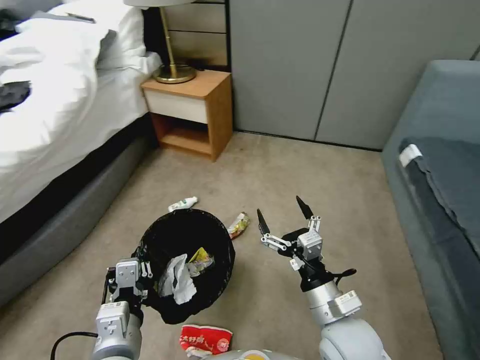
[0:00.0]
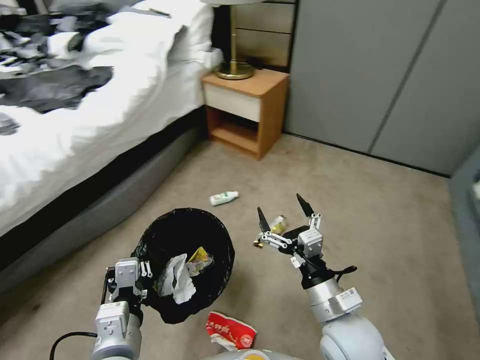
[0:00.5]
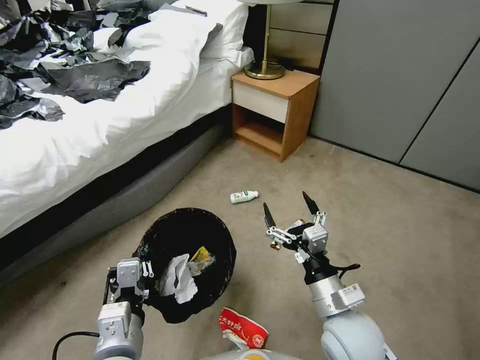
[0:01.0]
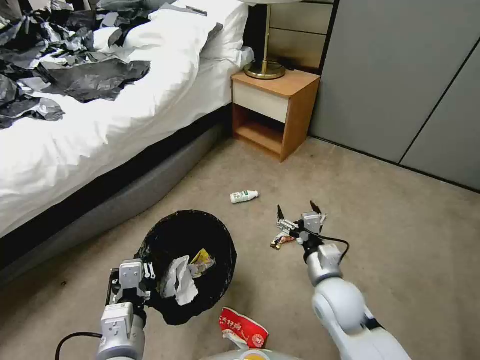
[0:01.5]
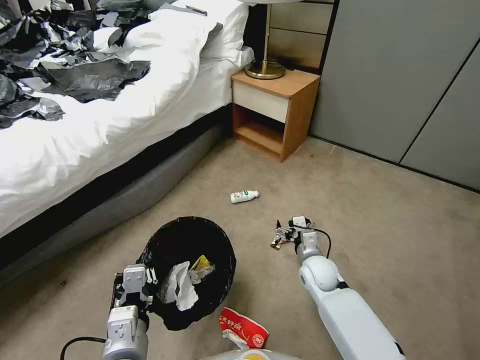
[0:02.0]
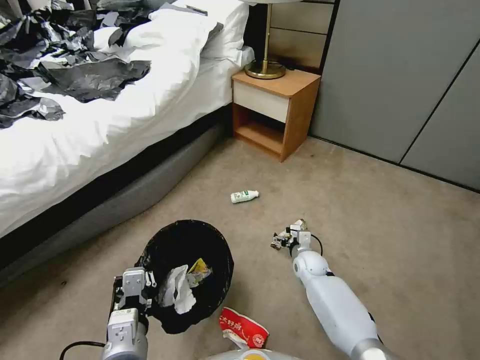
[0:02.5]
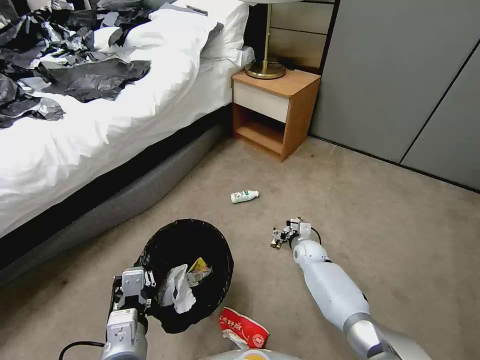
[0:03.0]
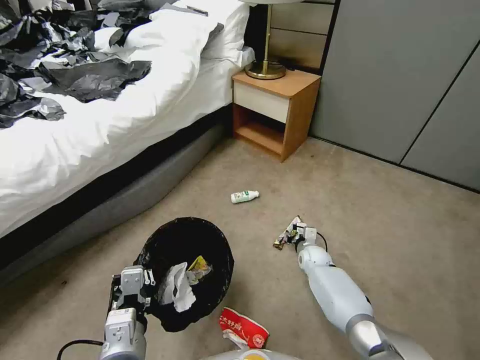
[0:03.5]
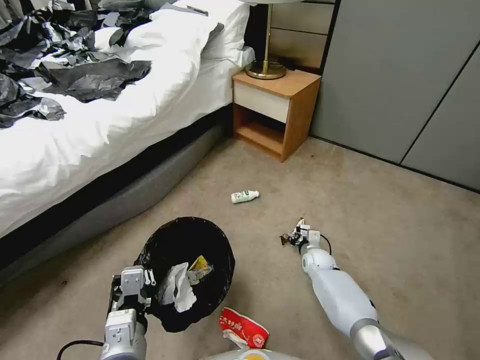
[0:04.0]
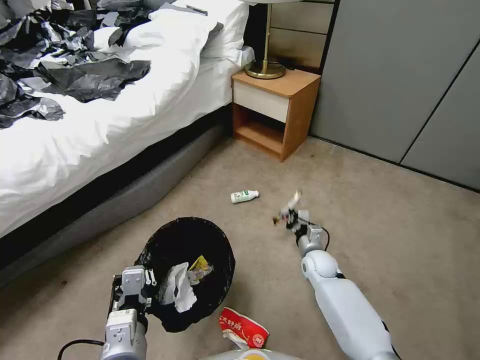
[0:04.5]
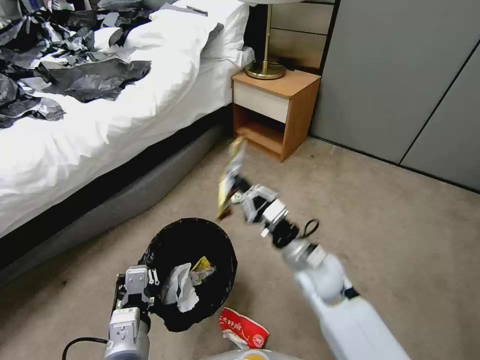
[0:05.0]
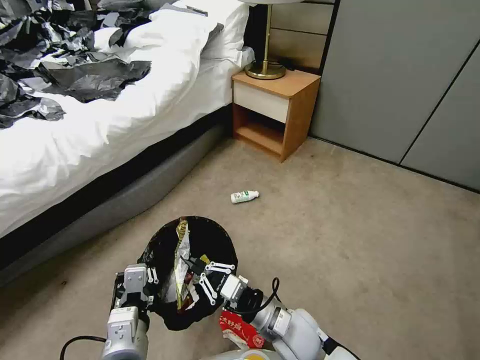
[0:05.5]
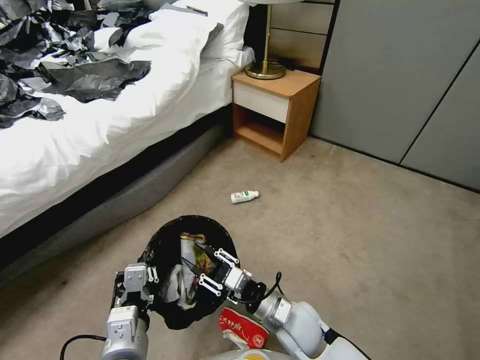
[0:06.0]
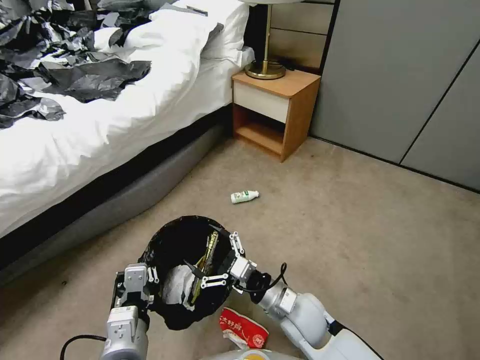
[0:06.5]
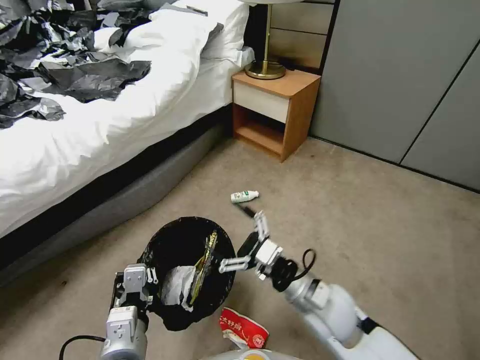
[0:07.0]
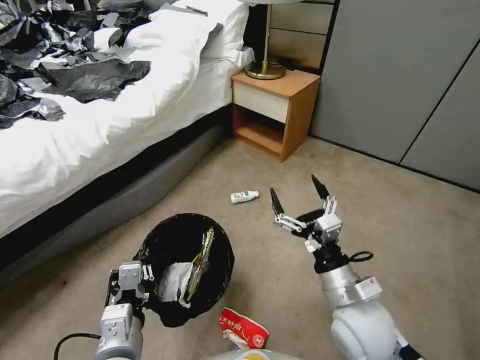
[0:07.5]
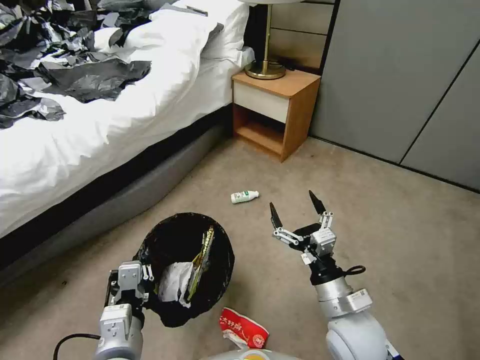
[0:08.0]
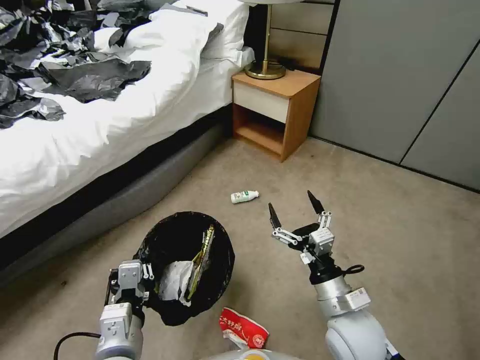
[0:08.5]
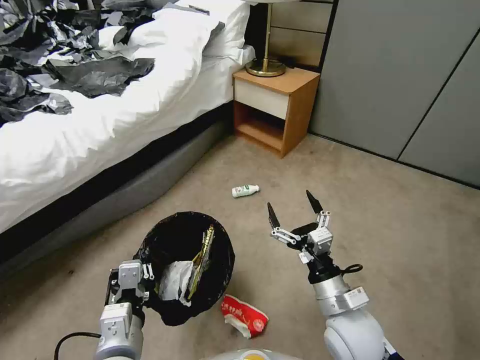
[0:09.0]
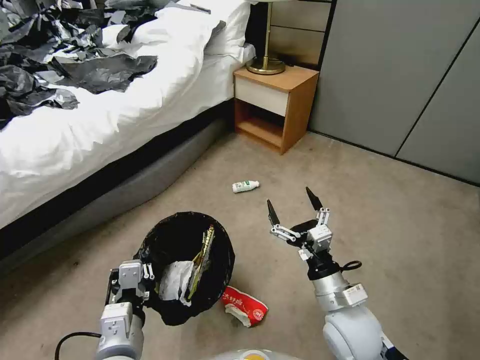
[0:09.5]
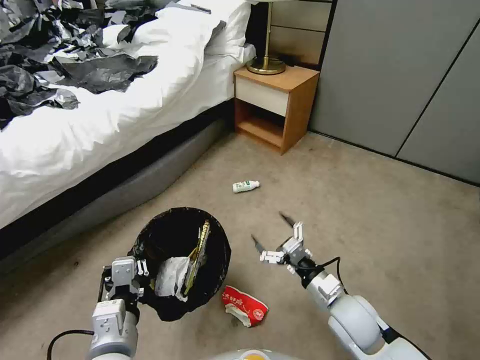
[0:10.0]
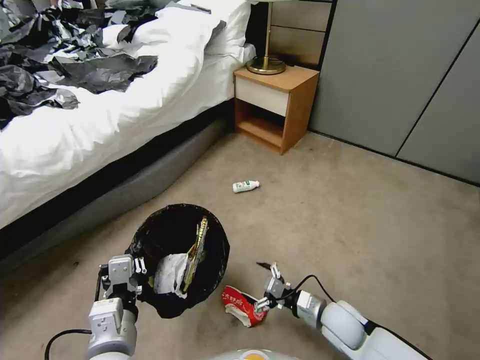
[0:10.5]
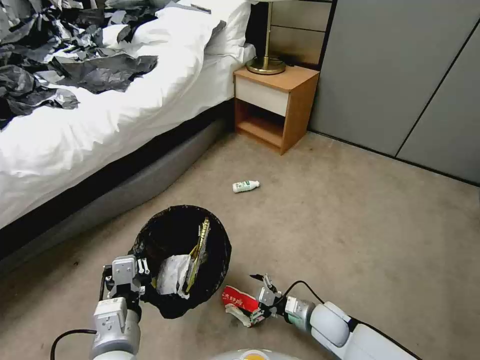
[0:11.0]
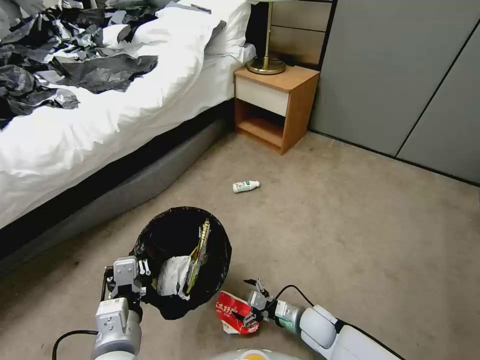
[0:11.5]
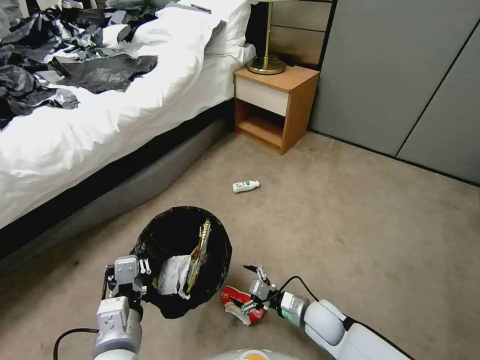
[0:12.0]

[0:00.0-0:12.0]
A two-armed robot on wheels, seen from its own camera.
Task of the whole recording: Pick up the trash bin, then pick up the garbage from the floor and place it into the trash bin.
0:00.0 to 0:02.0: The right gripper moves forward and downward, some 20 cm.
0:02.0 to 0:04.0: The right gripper travels downward and forward by some 15 cm, and closes its fingers.
0:04.0 to 0:06.0: The right gripper is displaced backward, upward and to the left by about 25 cm, and opens up.
0:06.0 to 0:08.0: The right gripper travels to the right and upward by some 10 cm, and opens.
0:08.0 to 0:10.0: The right gripper moves approximately 5 cm.
0:10.0 to 0:12.0: The right gripper travels downward by some 15 cm.

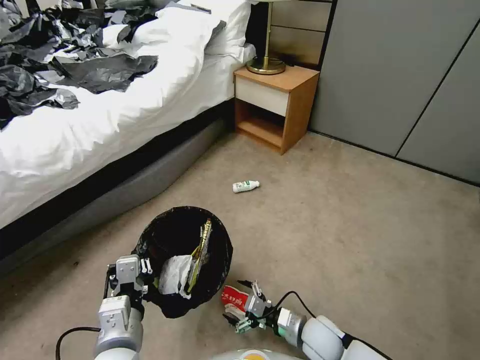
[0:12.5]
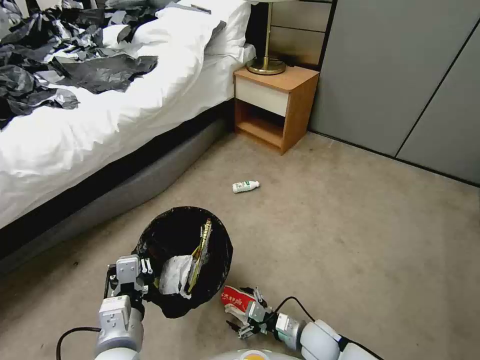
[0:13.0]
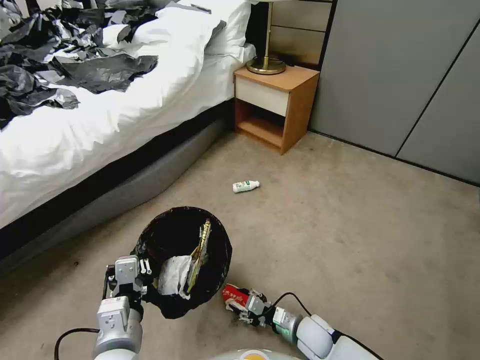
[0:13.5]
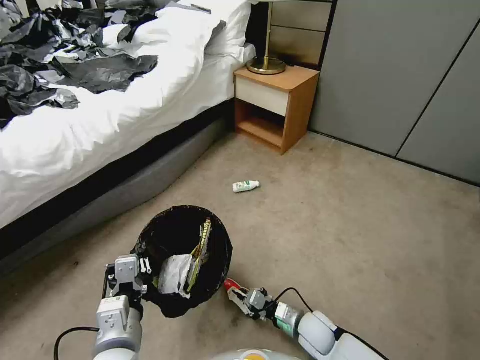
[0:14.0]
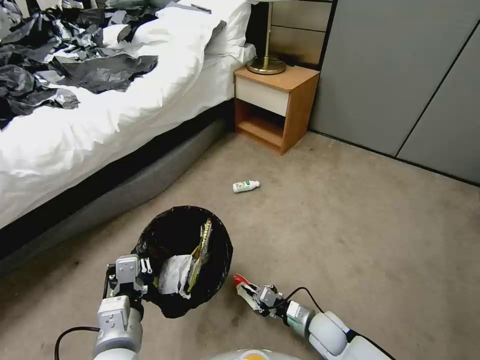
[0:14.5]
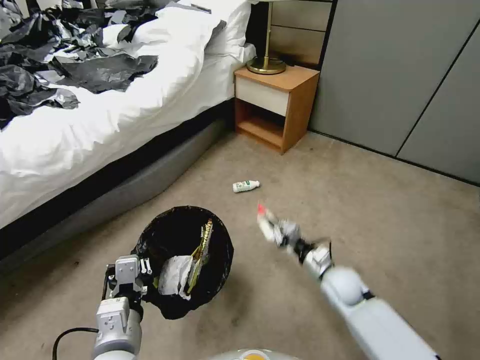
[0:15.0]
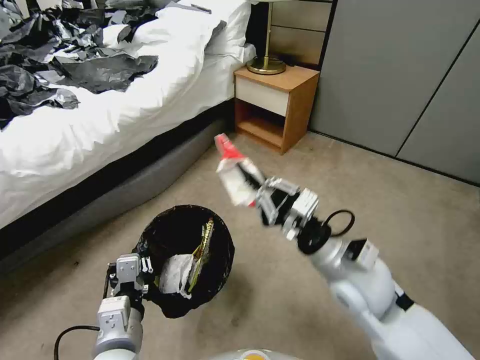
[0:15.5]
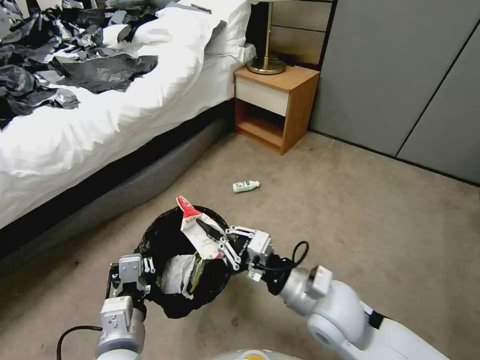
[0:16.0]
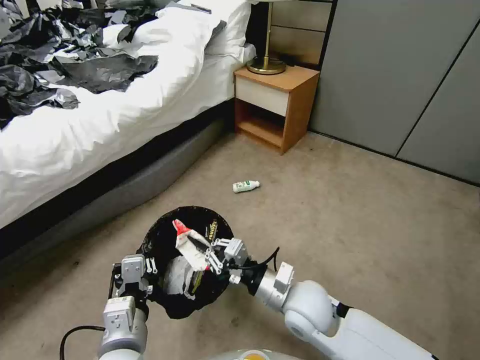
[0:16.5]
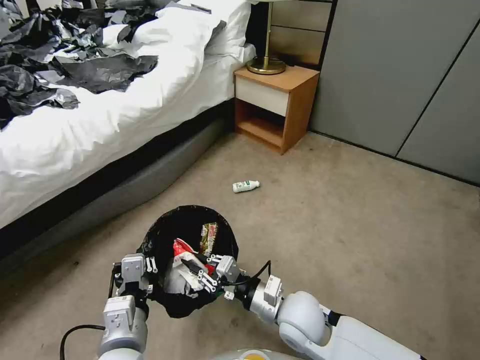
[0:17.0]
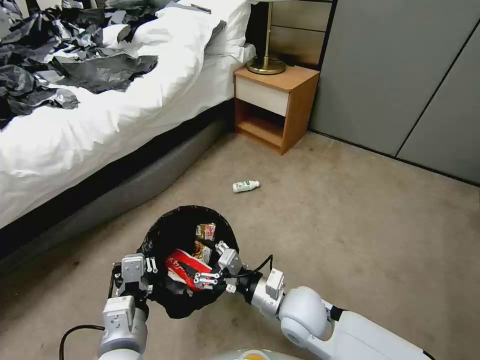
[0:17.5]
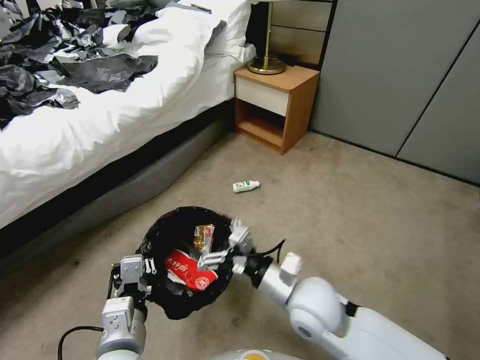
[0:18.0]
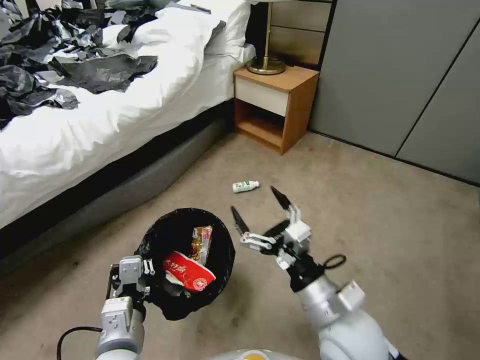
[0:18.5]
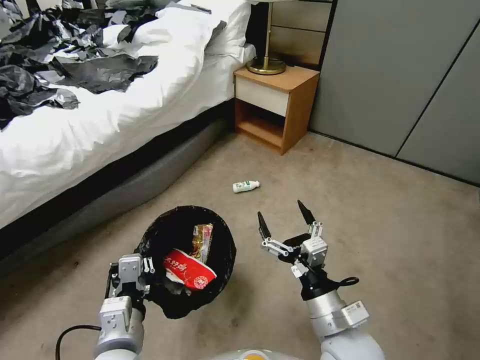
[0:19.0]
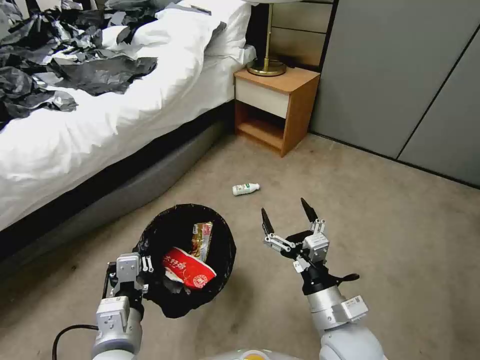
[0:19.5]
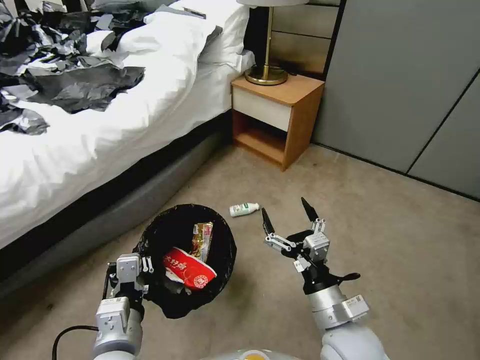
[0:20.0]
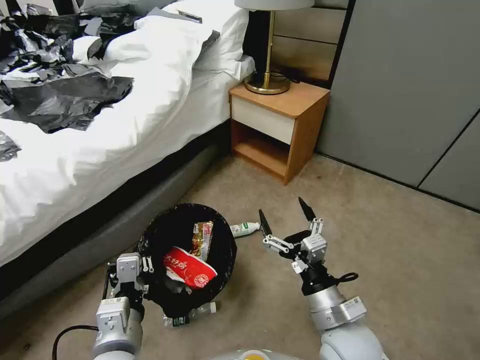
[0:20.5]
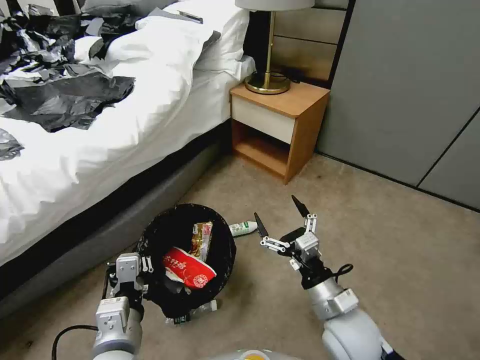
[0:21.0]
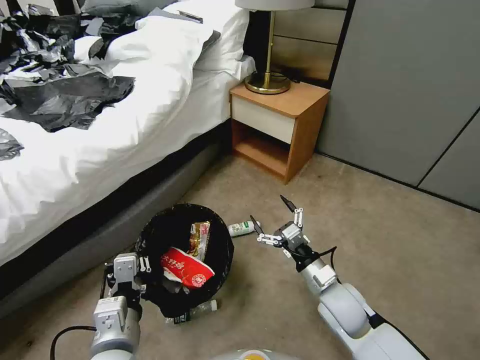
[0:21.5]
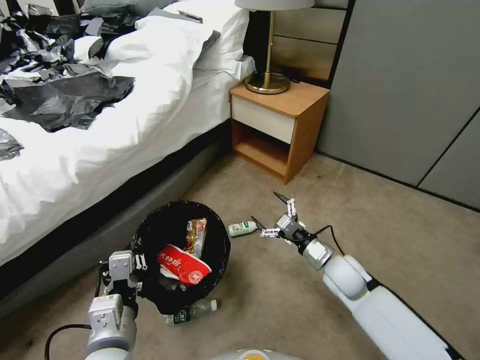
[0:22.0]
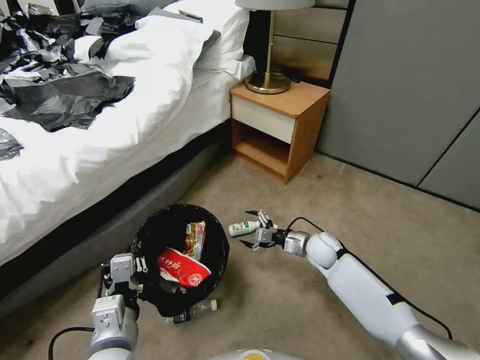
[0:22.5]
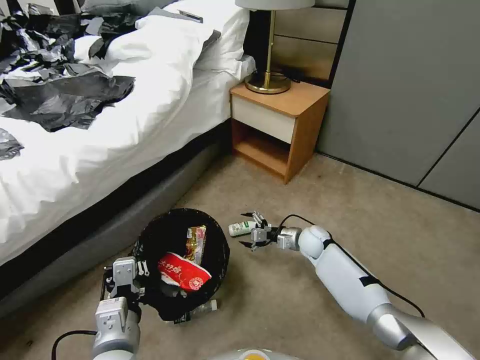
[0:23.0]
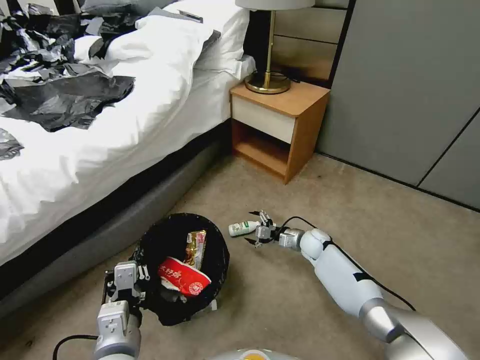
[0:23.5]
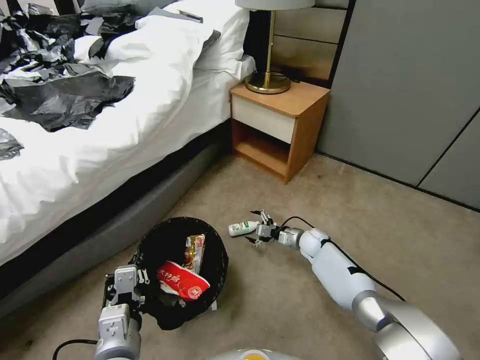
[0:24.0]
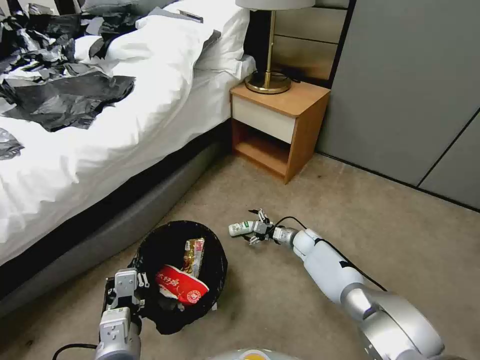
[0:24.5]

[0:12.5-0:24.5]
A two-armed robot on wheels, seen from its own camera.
Task of the whole recording: Pick up the trash bin, then pick up the garbage from the floor and place it into the trash bin.
0:12.5 to 0:14.5: The right gripper closes.
0:14.5 to 0:16.5: The right gripper is displaced upward and to the left by some 25 cm.
0:16.5 to 0:18.5: The right gripper goes some 10 cm upward and backward, and opens up.
0:18.5 to 0:20.5: The right gripper moves downward, roughly 5 cm.
0:20.5 to 0:22.5: The right gripper goes about 30 cm forward and downward.
0:22.5 to 0:24.5: The right gripper heads downward and forward, covering roughly 10 cm.

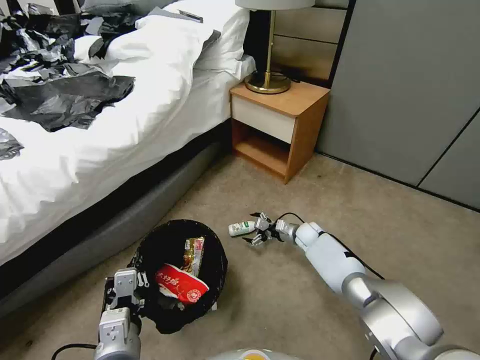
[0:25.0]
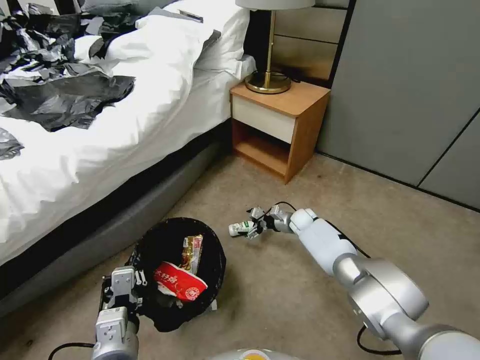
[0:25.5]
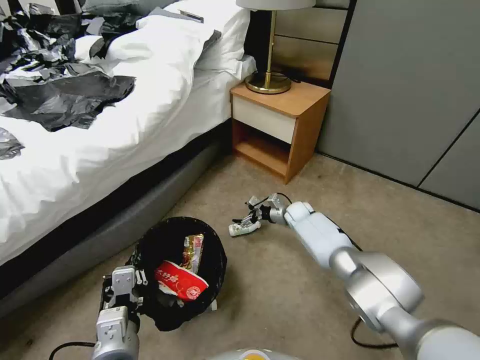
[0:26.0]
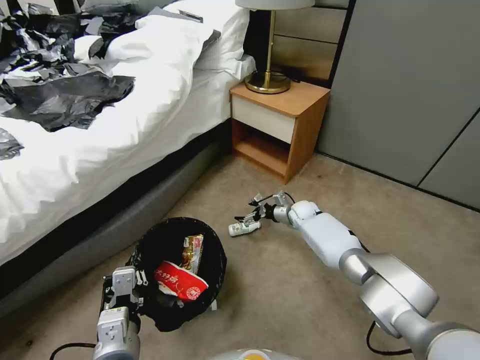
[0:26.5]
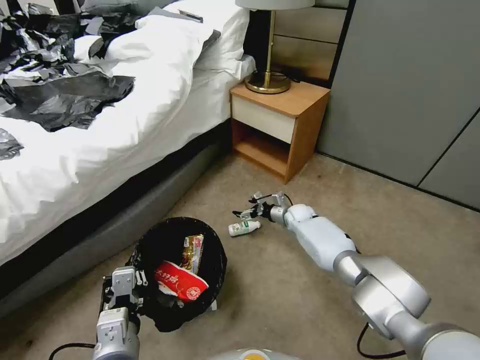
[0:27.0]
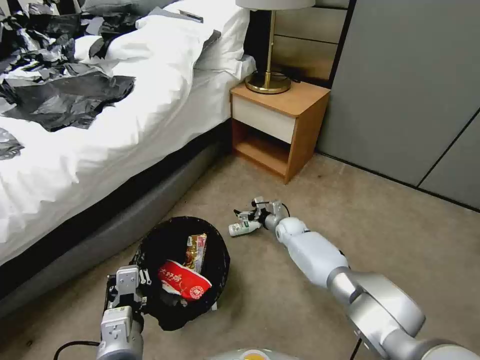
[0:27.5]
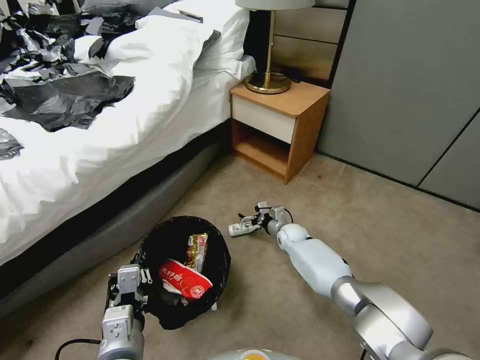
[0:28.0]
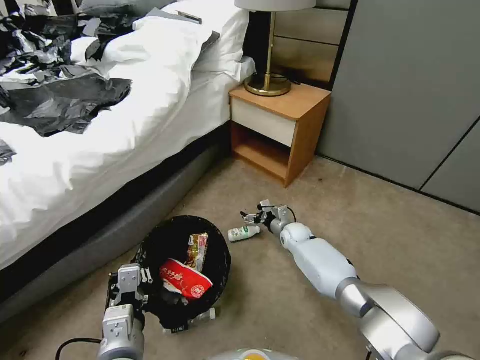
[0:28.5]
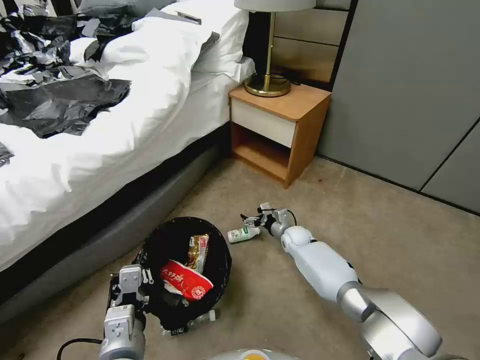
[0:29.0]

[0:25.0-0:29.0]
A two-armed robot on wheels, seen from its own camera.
Task of the whole recording: Pick up the trash bin, then pick up the garbage from the floor and place it into the trash bin.
0:25.0 to 0:27.0: The right gripper changes place by approximately 5 cm.
0:27.0 to 0:29.0: The right gripper is displaced backward by approximately 5 cm.
